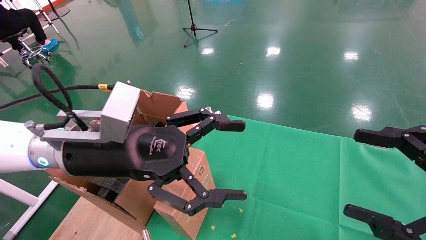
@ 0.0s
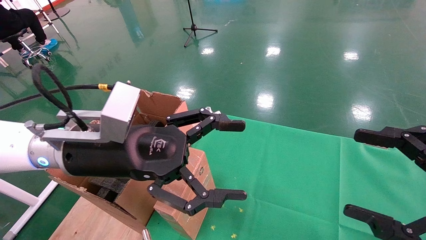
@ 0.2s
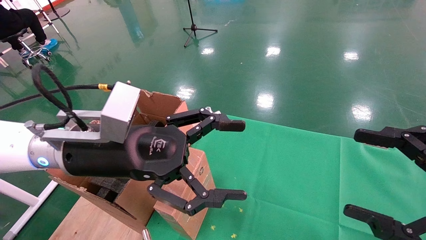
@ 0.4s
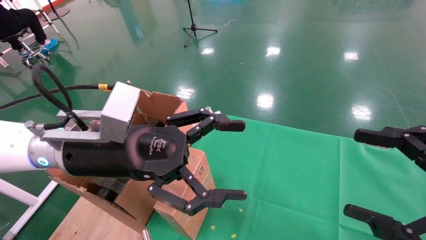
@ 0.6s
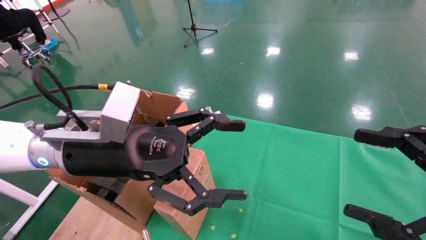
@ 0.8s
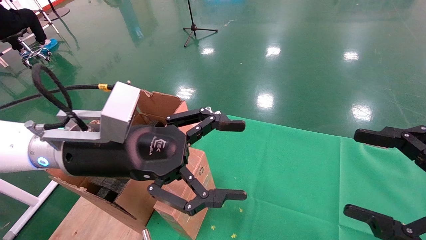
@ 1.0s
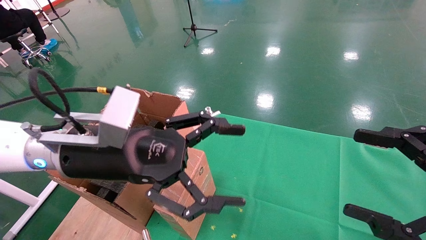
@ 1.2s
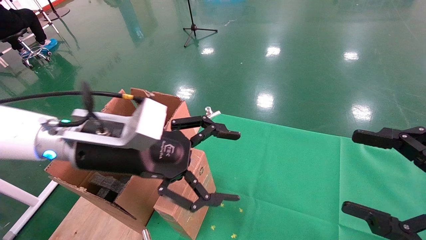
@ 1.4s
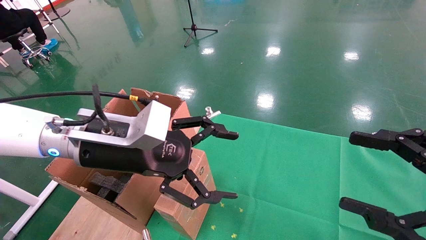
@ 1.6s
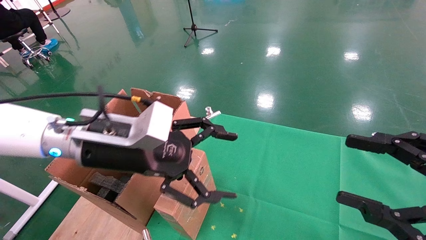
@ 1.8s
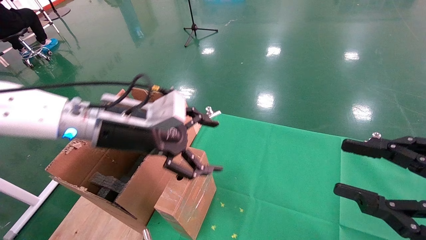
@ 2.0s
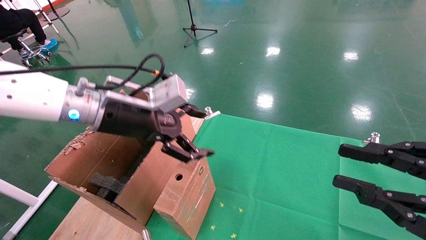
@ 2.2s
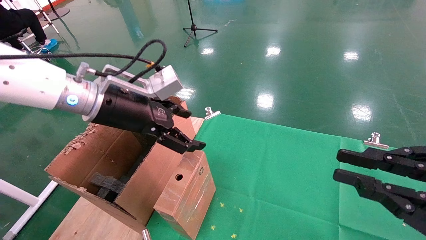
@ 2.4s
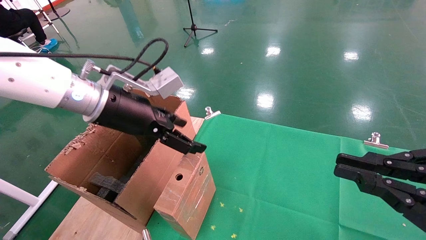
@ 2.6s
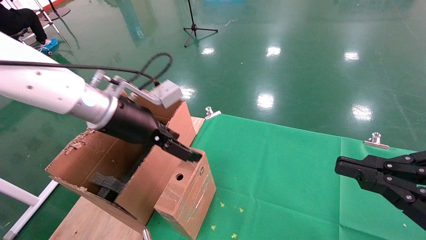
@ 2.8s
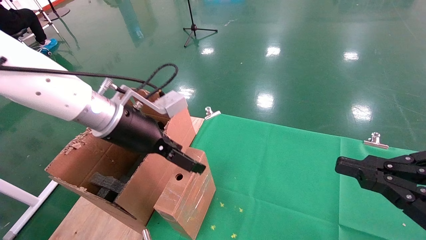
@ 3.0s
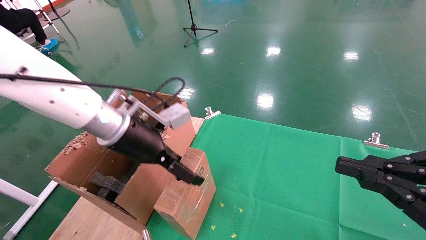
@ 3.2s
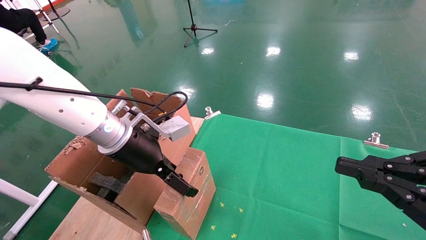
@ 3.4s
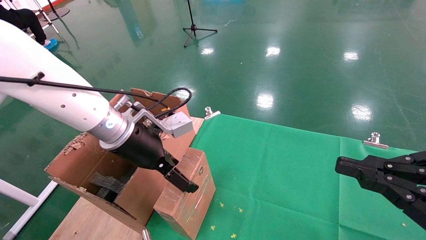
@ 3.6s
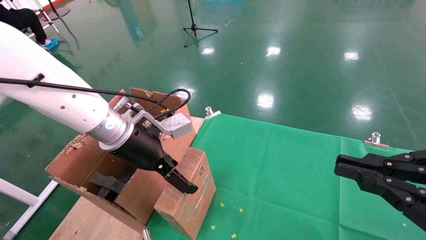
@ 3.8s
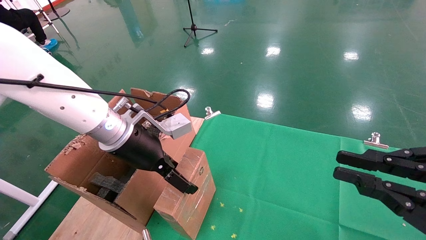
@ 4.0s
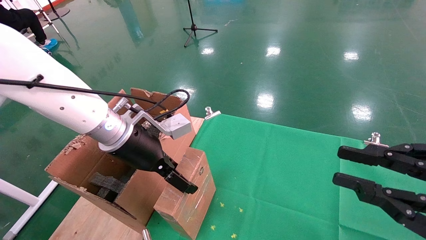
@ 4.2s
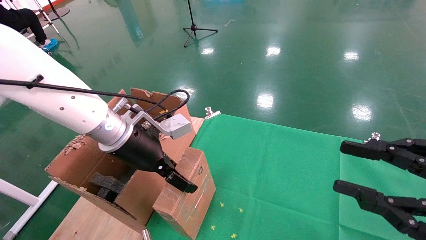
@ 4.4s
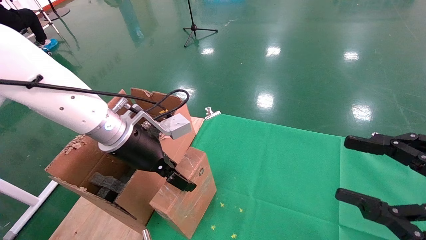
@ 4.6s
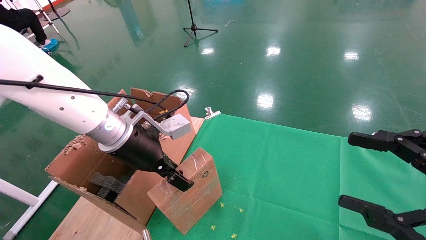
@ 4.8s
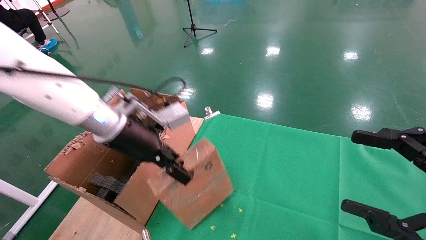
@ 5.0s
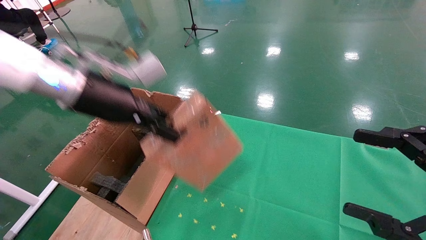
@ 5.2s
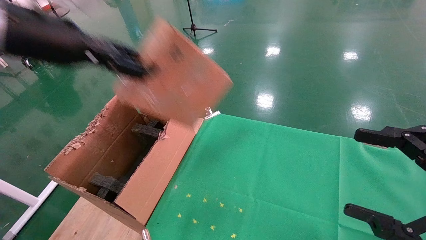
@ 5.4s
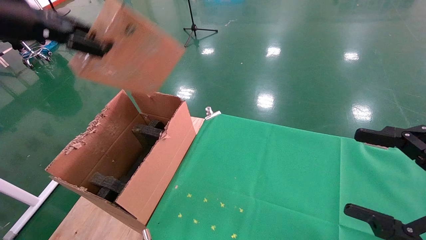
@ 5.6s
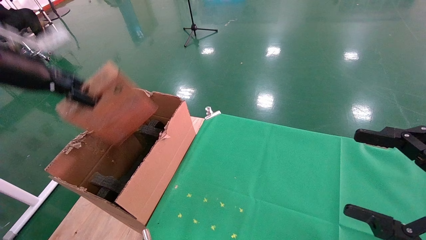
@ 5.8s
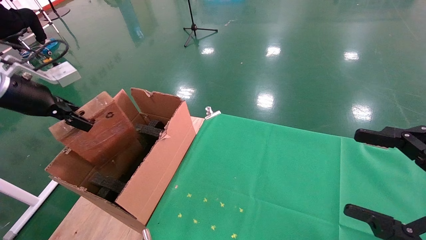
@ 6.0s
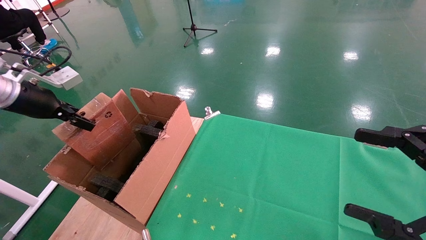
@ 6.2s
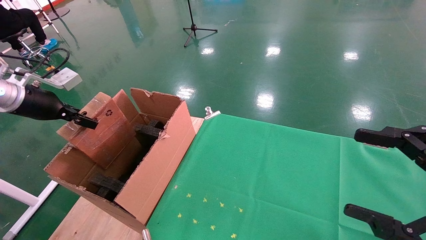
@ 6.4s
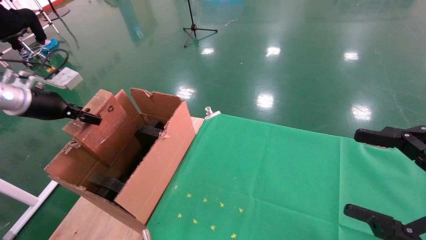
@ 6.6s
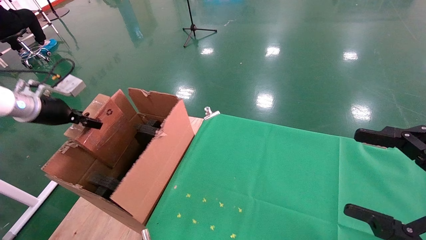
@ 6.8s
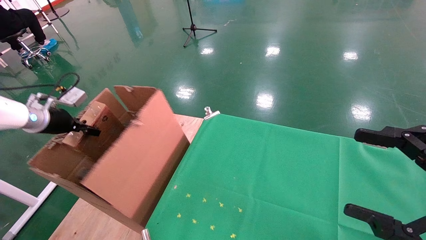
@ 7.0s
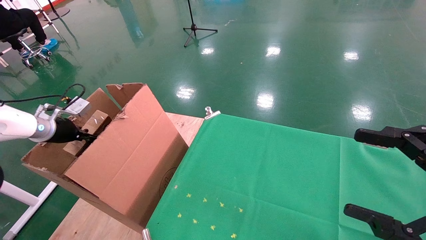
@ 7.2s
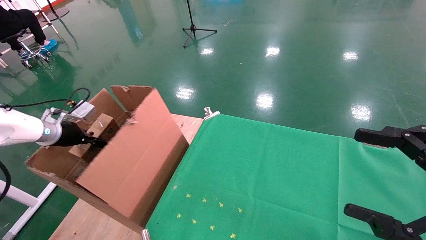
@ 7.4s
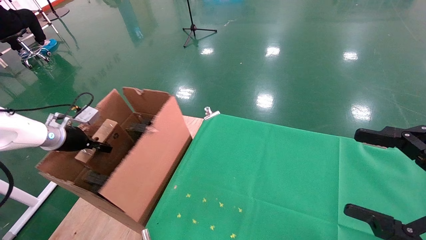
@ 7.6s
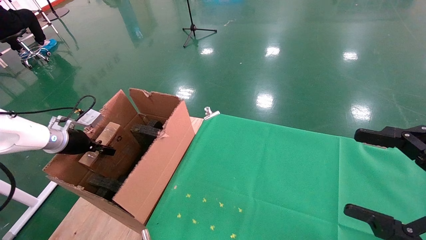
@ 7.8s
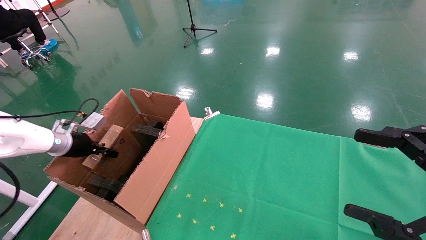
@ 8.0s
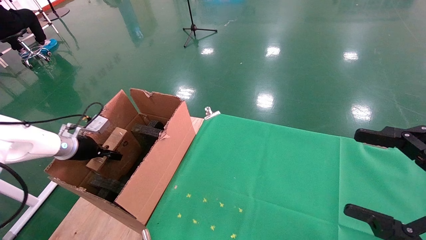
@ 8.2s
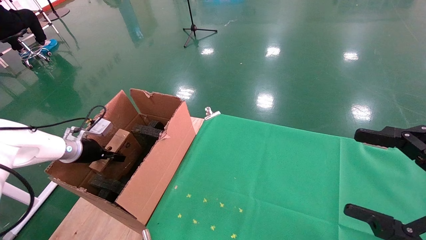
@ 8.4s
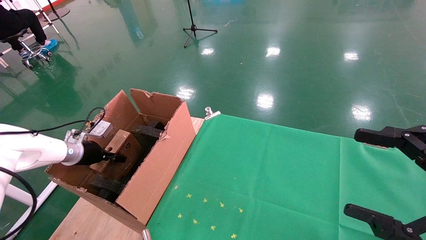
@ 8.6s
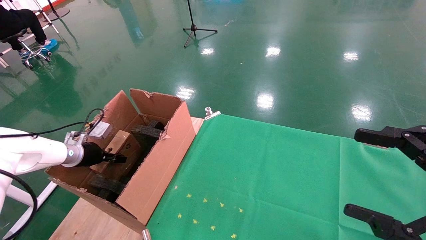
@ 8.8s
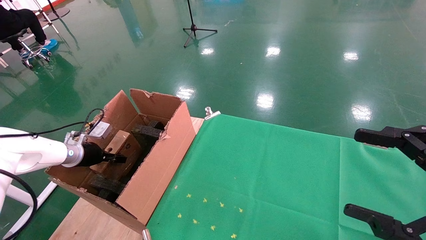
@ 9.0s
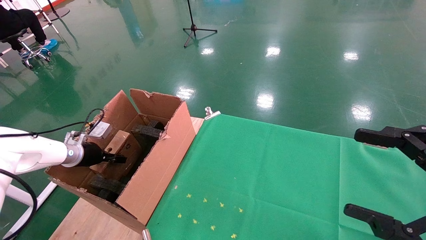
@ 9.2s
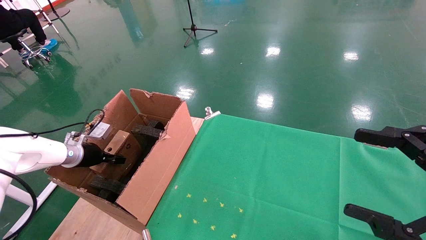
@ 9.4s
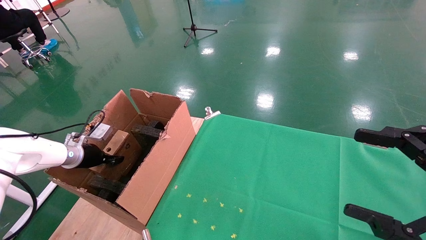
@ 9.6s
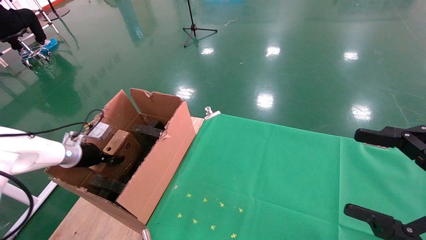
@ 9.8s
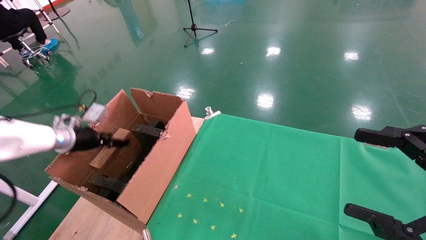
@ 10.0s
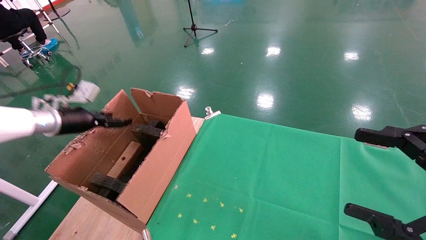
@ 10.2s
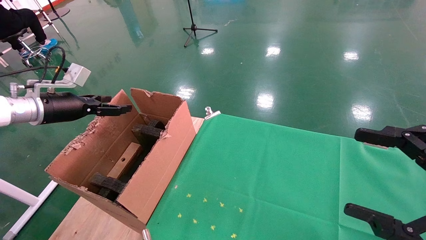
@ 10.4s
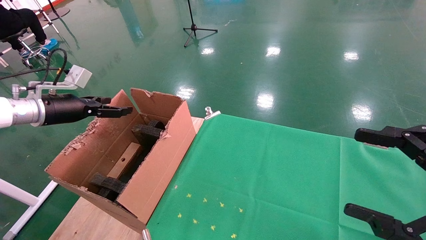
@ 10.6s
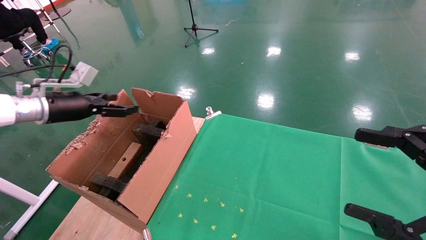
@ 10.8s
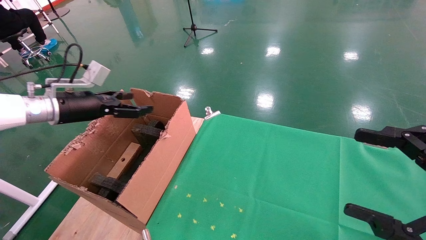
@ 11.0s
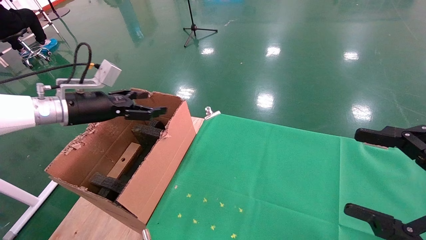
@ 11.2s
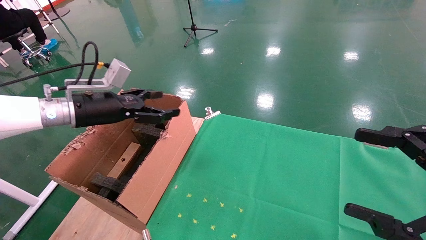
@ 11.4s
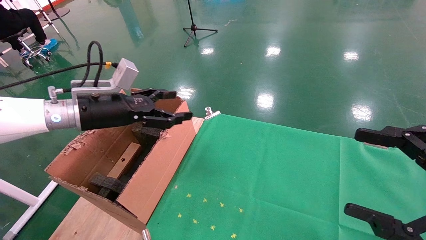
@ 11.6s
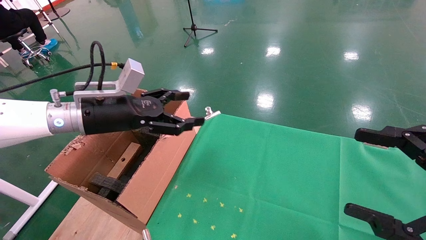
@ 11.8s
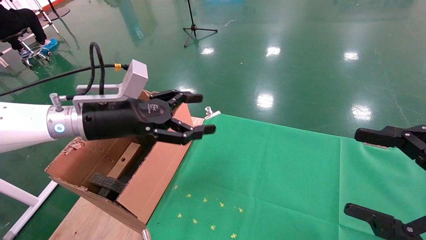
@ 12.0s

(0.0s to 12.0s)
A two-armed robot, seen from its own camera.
Task of the whole recording: using a robotic arm to pick up a cardboard box and palace it the carton.
Step, 1.0s - 4.8s: Pick up the mouse and the power cord paper box.
Step, 5.0s - 10.4s: Place the mouse and the power cord paper box into the container.
0.0s - 1.6s: The grippers make only small movements.
1.6s - 3.0s: The left gripper travels forward by about 5 cm; the right gripper closes.
3.0s - 4.4s: The grippers move only a little.
4.4s - 6.0s: The right gripper opens. The left gripper moves to the left, approximately 25 cm, and closes its fingers.
6.0s - 7.6s: The left gripper moves downward and forward, some 20 cm.
7.6s - 9.0s: The left gripper heads downward, covering roughly 5 cm.
9.0s - 10.4s: The left gripper travels upward by approximately 15 cm, and opens up.
10.4s - 12.0s: The left gripper moves to the right, roughly 20 cm.

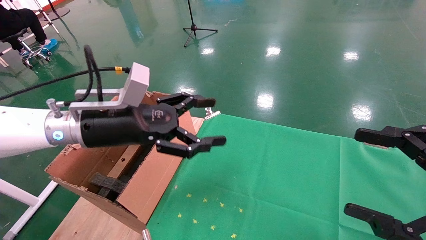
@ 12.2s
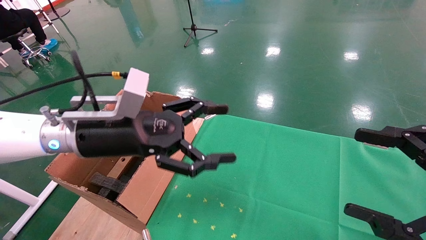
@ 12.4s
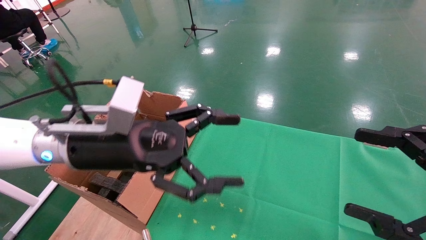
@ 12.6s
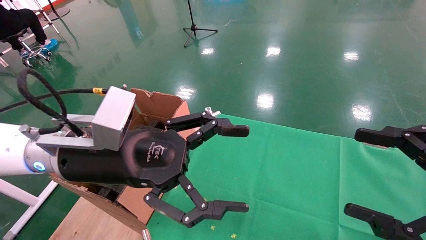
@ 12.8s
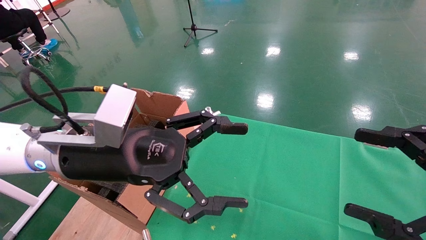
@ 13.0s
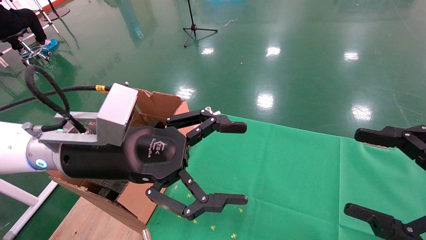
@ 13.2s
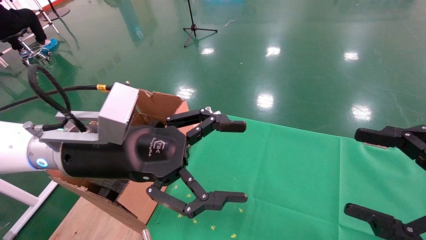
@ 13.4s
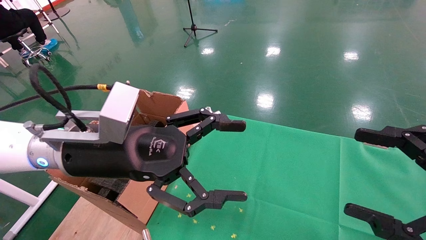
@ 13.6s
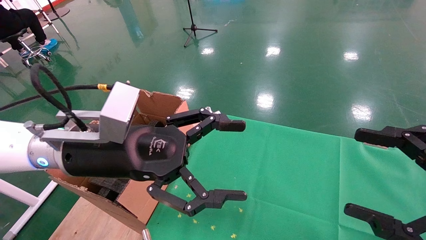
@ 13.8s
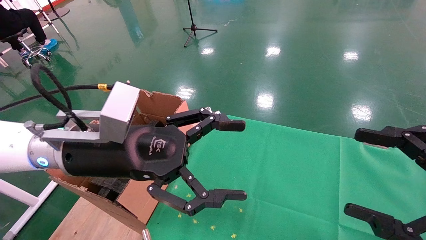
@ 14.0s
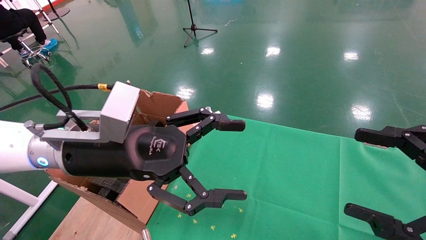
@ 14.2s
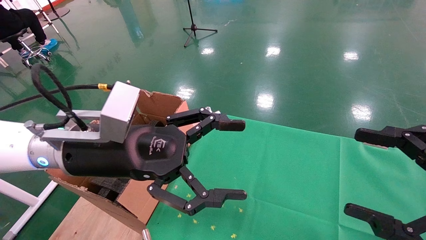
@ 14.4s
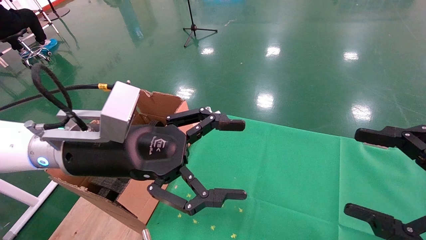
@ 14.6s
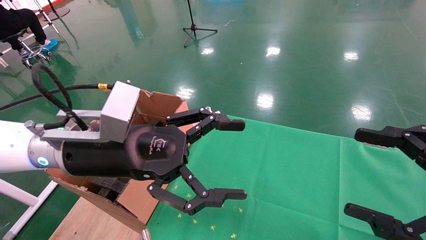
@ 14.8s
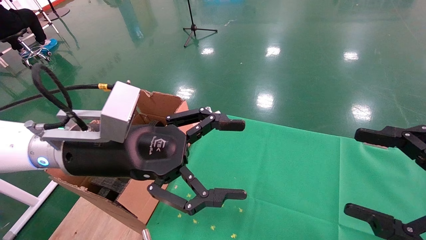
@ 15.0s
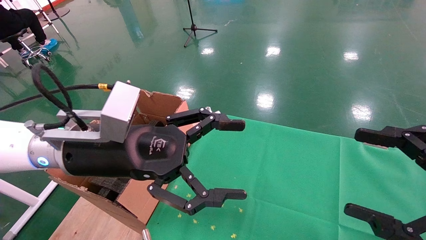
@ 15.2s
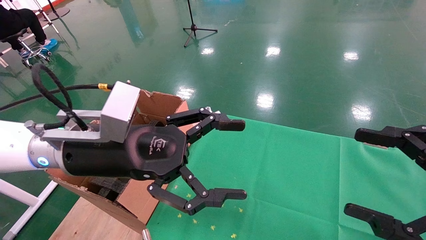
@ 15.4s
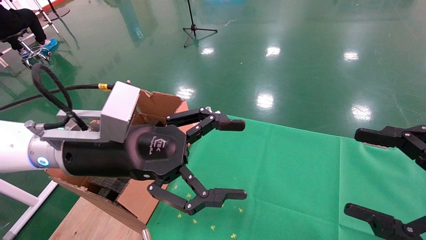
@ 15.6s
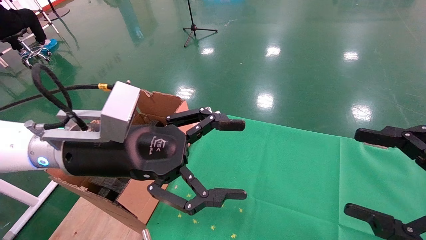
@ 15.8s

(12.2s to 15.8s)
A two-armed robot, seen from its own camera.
Task of the whole recording: using a robotic arm to pick up a cardboard box and palace it the carton.
12.2s - 14.0s: The left gripper shifts about 5 cm backward.
14.0s - 15.8s: Both grippers stay about where they are.

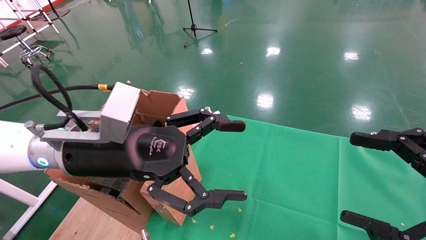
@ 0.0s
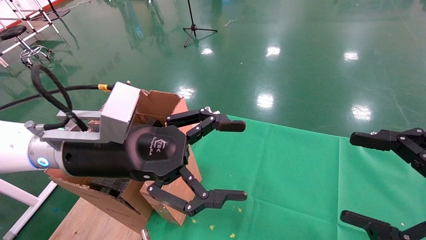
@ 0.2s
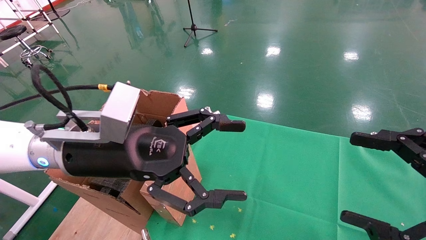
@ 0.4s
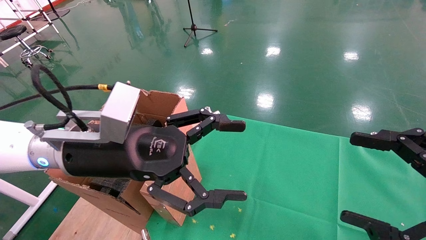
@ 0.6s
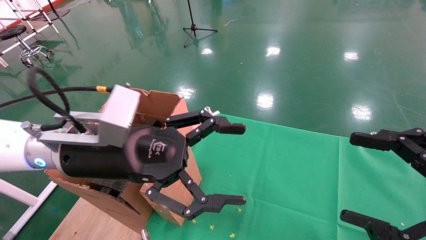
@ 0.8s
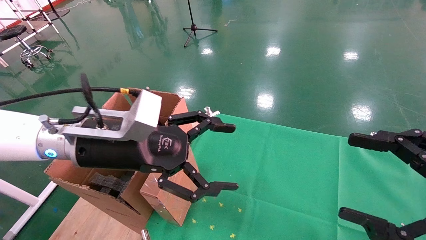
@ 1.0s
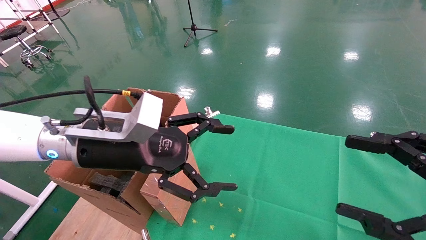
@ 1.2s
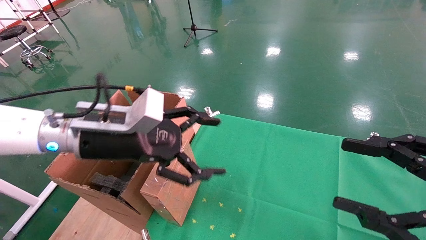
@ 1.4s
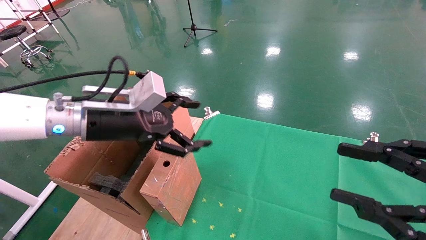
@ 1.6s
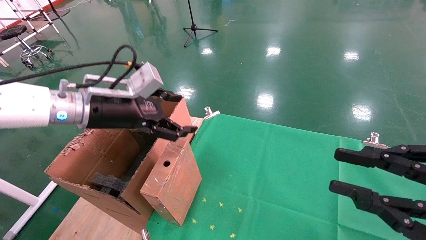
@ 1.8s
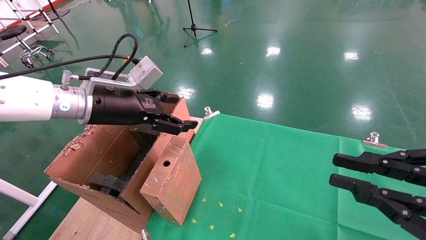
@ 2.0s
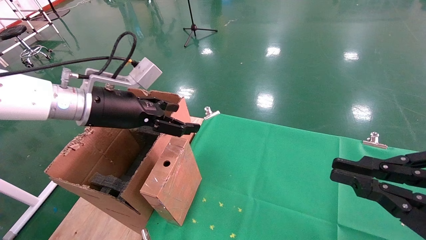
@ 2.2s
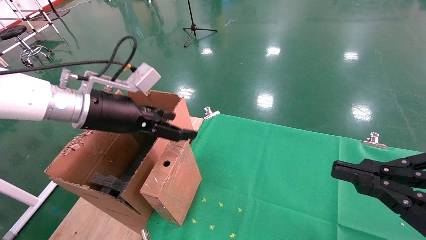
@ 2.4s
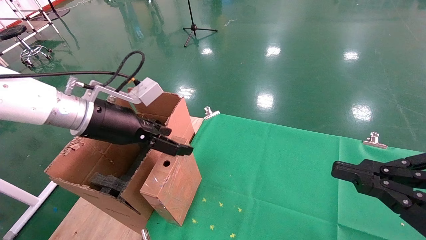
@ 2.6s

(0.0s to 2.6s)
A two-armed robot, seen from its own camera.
Task of the whole recording: using a robotic arm to pick up a cardboard box and palace it the carton.
0.0s - 1.2s: The grippers make only small movements.
1.2s - 2.6s: The left gripper ends up roughly 5 cm from where it was, while the right gripper closes.
